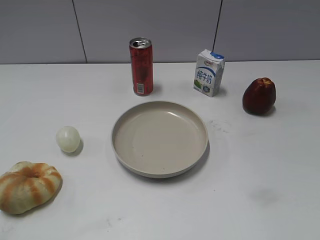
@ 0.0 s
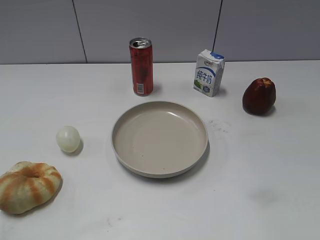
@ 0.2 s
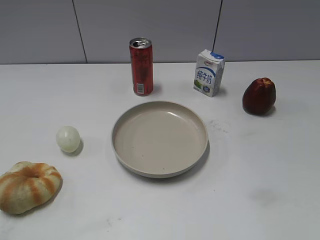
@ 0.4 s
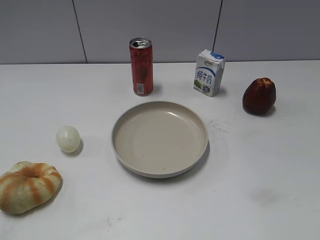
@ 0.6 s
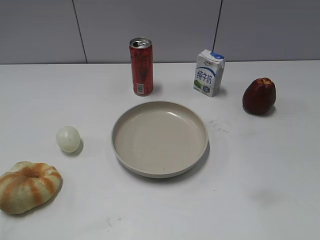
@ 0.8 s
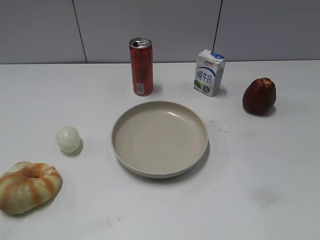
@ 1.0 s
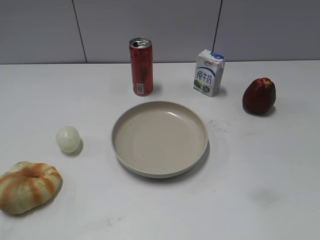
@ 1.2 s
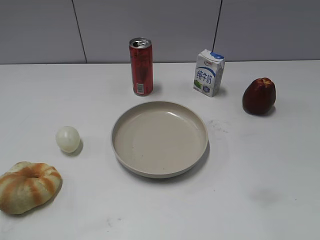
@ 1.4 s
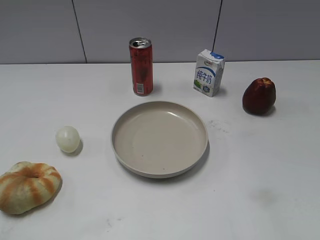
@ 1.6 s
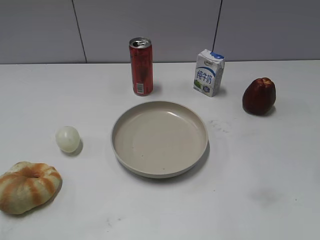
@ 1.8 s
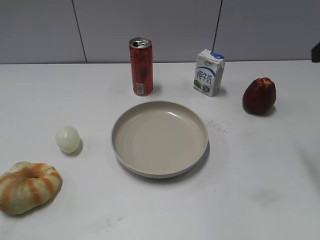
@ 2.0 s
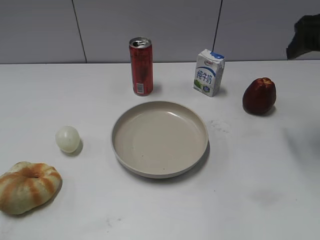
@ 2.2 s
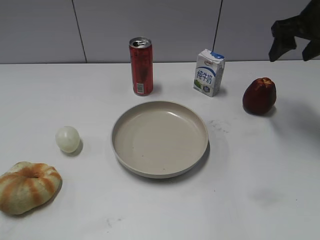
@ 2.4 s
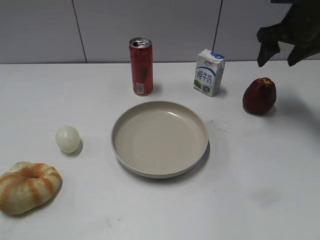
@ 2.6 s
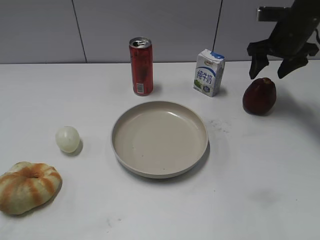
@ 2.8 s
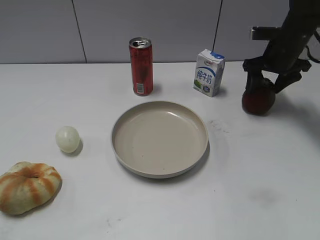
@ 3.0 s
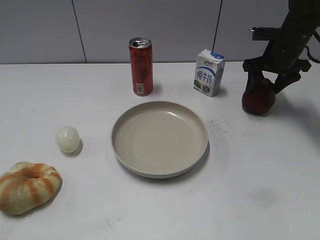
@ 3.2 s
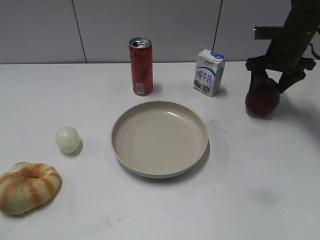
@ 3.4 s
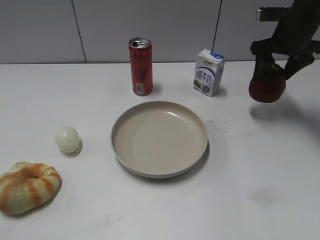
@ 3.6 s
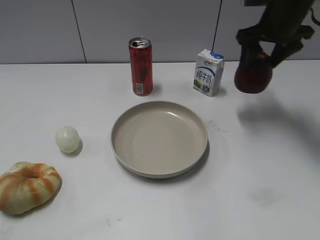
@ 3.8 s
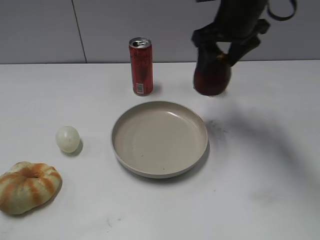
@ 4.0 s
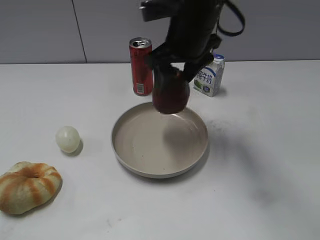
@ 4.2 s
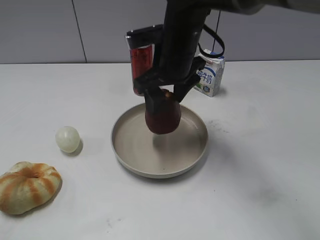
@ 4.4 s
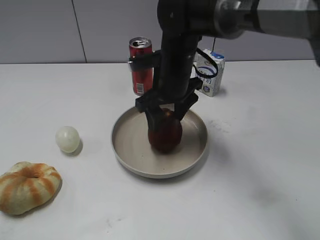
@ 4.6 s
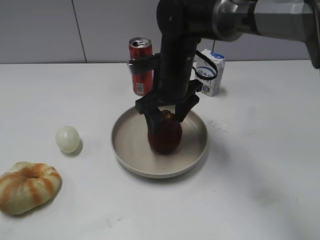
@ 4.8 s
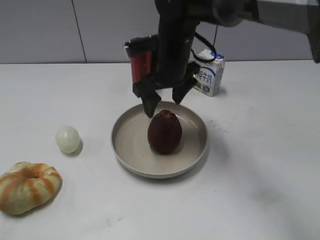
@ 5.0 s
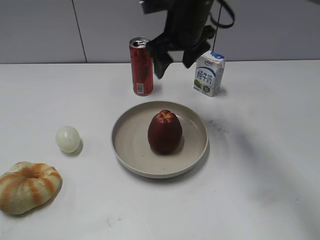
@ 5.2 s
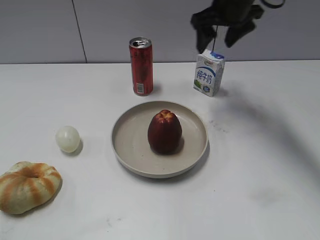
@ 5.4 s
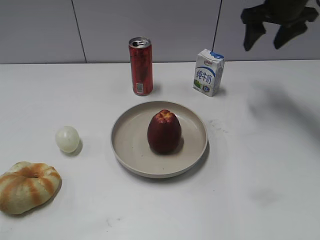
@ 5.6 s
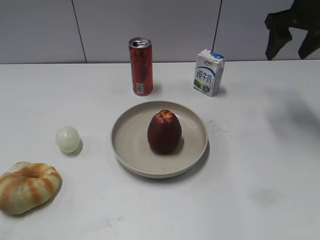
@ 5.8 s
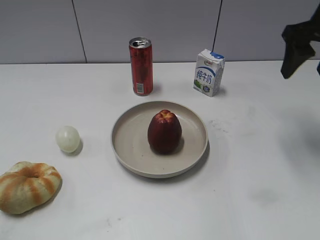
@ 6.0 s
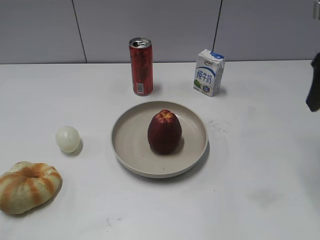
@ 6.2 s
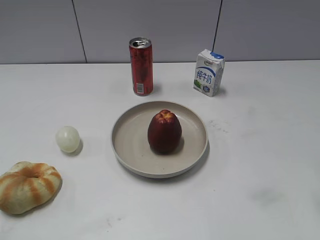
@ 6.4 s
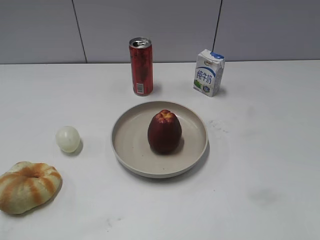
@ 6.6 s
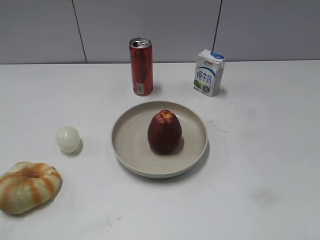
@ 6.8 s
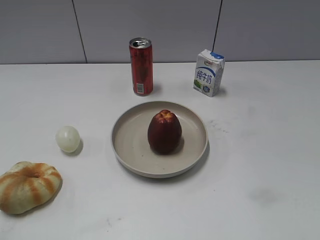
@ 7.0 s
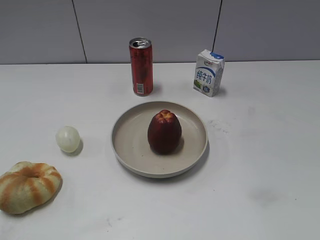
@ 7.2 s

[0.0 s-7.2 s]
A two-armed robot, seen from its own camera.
Step, 2.0 to 3.2 s: Grasp the apple with right gripper.
Step, 3.4 to 4.8 s: Place the apple on the plate with right gripper.
1.4 to 2.8 s: The right gripper moves forward, approximately 40 cm, and opens up.
2.8 to 4.4 s: The right gripper moves to the left and backward, roughly 25 cm.
4.4 to 5.8 s: The right gripper moves to the right, some 25 cm.
5.8 to 7.2 s: The right gripper travels backward by roughly 40 cm.

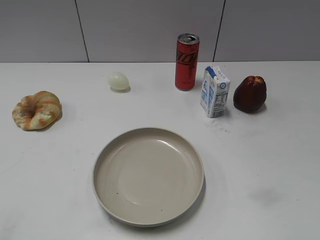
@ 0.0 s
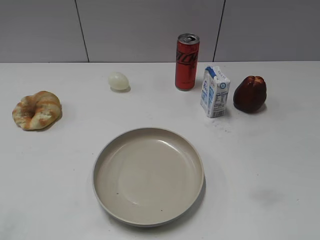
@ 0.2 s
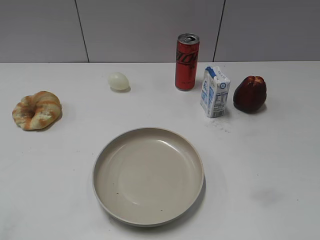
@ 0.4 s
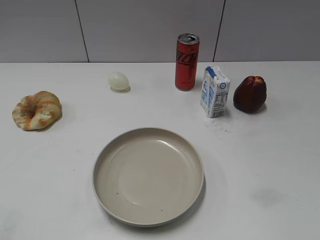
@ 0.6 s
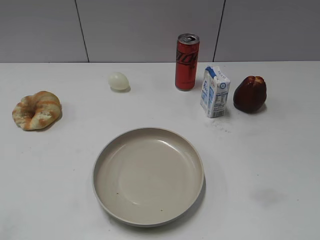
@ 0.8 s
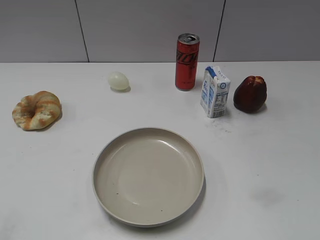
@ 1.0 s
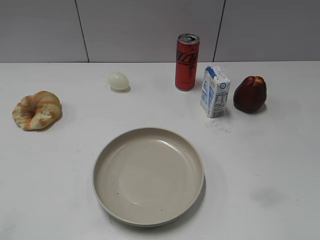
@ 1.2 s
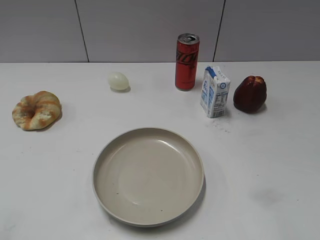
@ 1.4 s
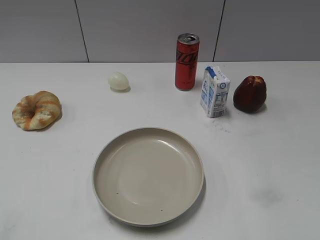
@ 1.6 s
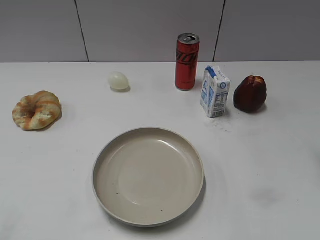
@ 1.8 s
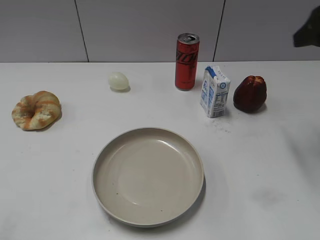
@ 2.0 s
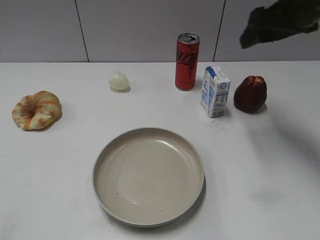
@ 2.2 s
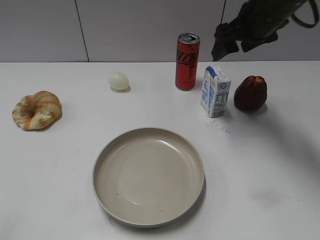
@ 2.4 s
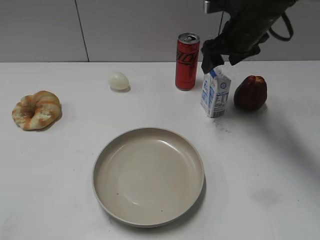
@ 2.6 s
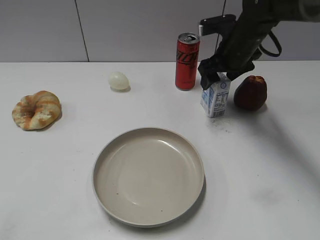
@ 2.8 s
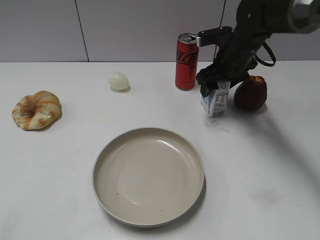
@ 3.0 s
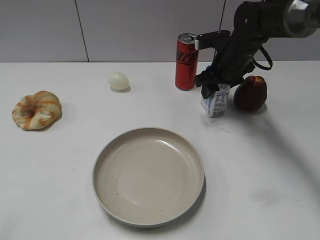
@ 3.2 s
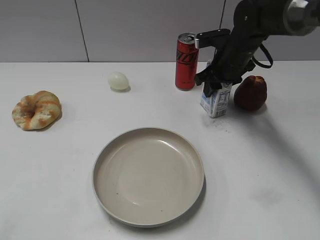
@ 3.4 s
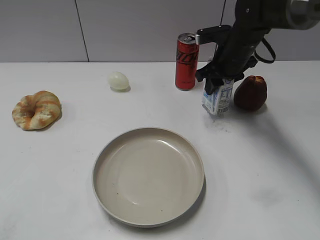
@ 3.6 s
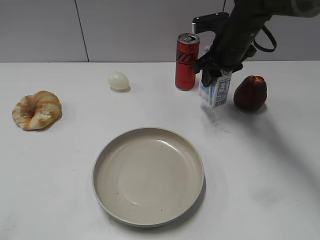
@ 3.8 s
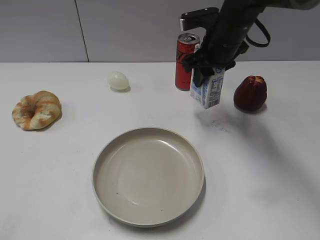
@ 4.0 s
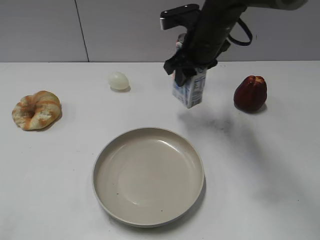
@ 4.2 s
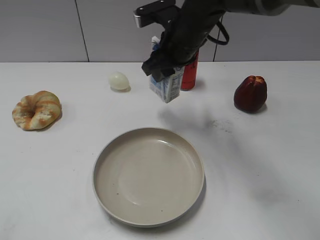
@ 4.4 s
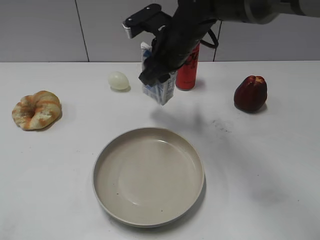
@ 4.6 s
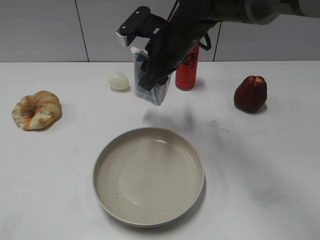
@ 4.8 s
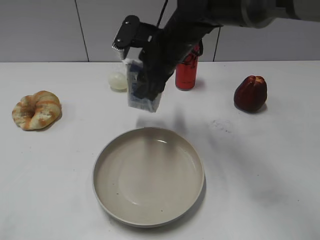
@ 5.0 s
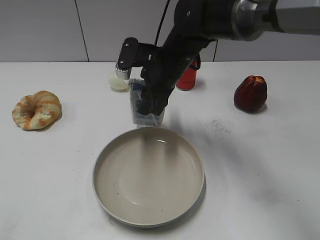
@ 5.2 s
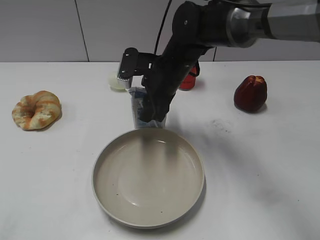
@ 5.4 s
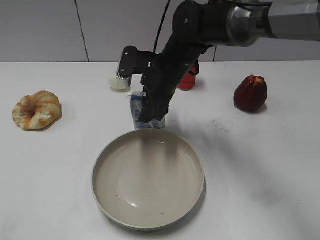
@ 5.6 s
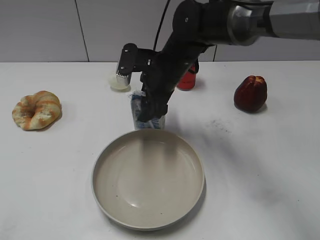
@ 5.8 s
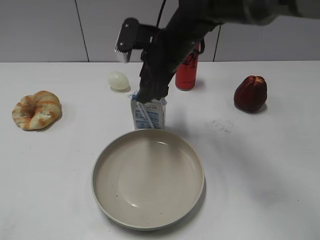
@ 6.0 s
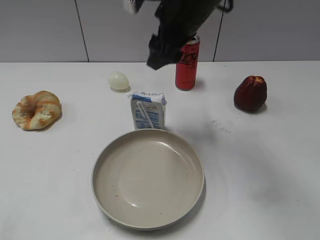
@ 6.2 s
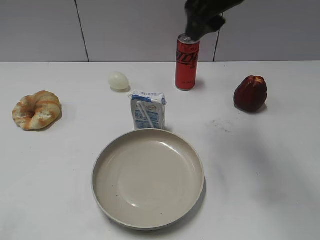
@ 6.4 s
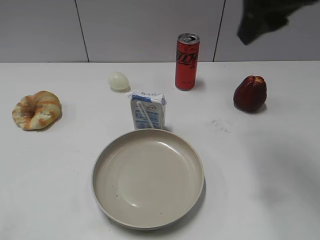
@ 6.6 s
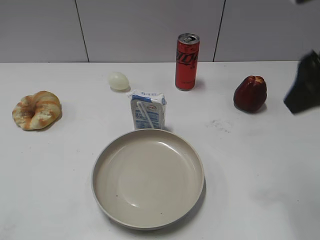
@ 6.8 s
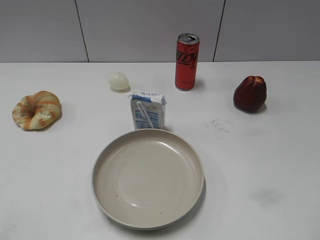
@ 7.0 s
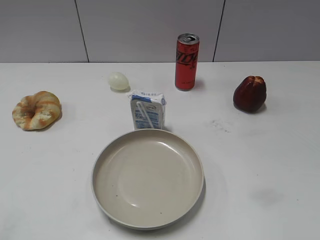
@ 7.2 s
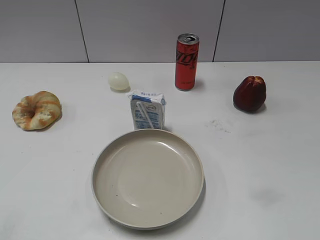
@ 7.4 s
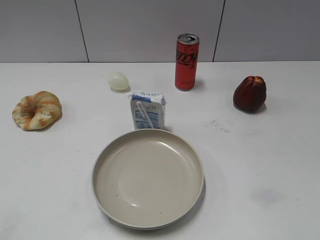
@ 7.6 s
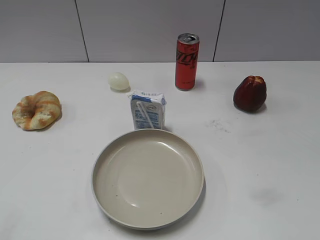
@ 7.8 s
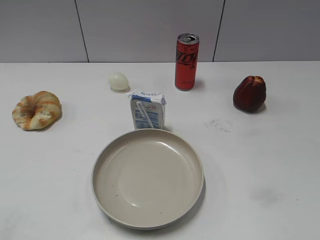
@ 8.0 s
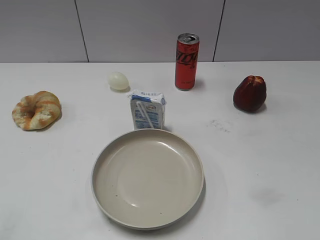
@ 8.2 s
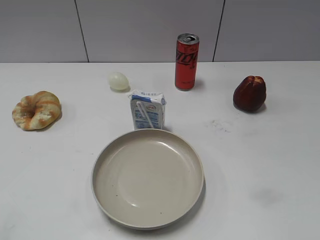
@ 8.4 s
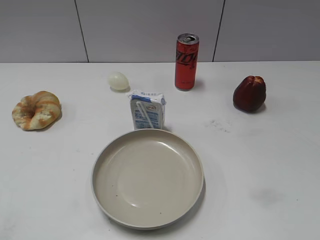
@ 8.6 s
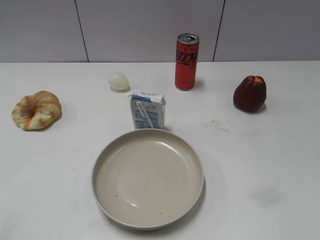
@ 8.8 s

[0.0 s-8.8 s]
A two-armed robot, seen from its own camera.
Step, 1.0 to 3.6 s: Grasp the milk with right gripper.
Step, 4.0 to 5.8 s: Place the milk on the table with right gripper.
1.4 to 3.0 s: The right gripper moves forward, downward and to the left, approximately 40 cm.
3.0 to 4.4 s: The right gripper shifts about 15 cm to the left, upward and backward, and closes.
4.4 to 5.8 s: The right gripper shifts approximately 5 cm downward, and opens its fingers.
5.8 to 7.4 s: The right gripper goes roughly 40 cm backward and to the right.
